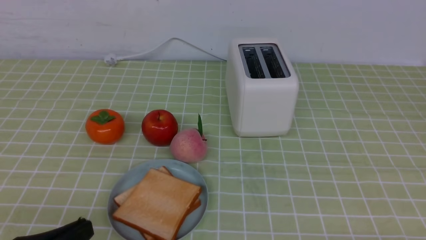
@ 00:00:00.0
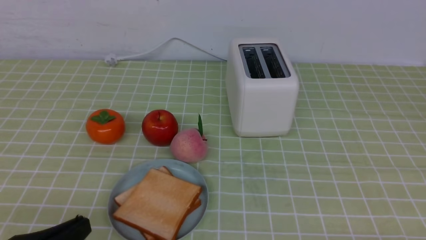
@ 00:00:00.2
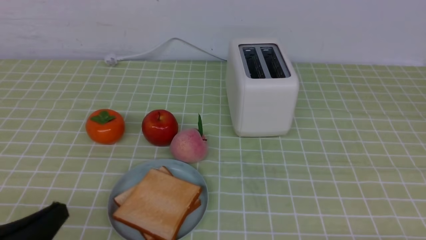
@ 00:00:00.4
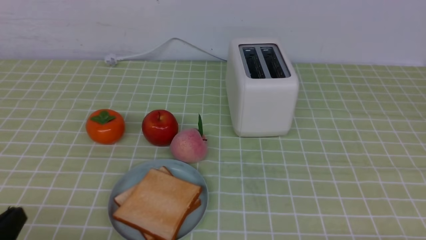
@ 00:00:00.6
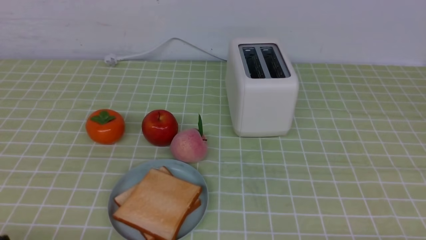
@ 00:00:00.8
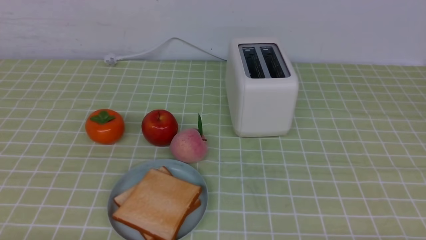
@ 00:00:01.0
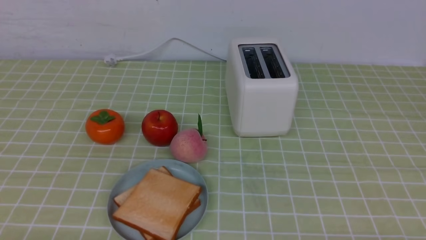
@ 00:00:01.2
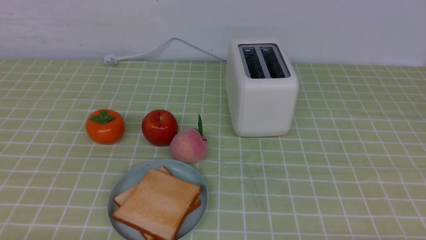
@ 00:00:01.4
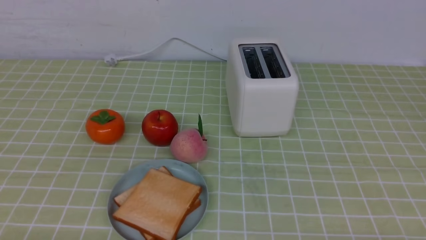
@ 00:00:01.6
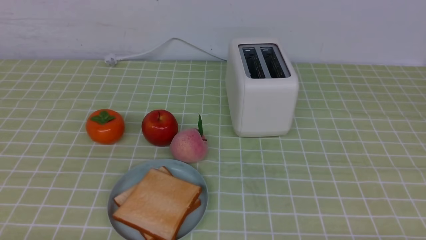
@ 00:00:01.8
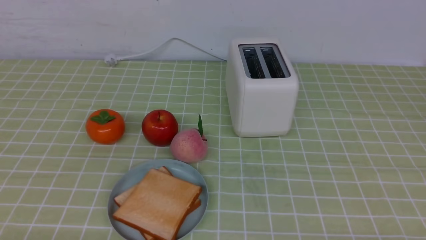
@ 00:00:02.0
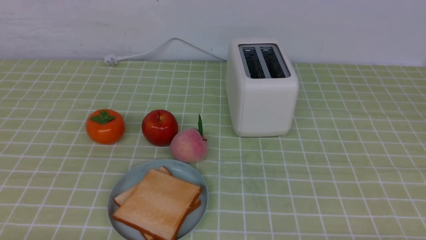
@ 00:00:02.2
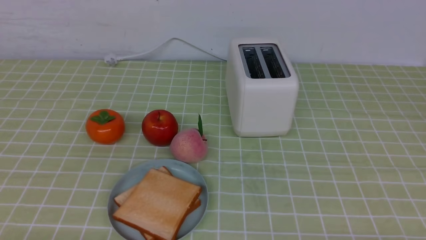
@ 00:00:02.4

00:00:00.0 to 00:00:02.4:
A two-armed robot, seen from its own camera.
Task of the whole recording: take toasted bread from bread machine on green coffee tablecloth place on plate.
00:00:00.0 to 00:00:01.2: The left gripper goes approximately 5 cm downward.
00:00:01.2 to 00:00:02.4: Neither gripper changes place.
